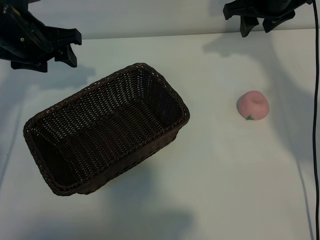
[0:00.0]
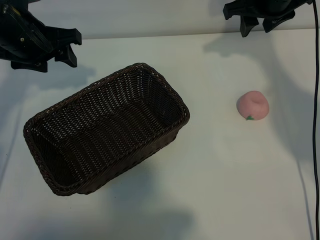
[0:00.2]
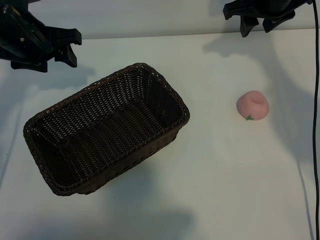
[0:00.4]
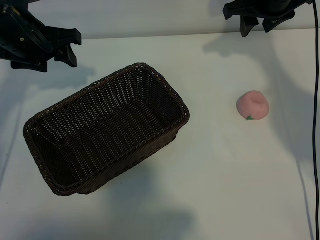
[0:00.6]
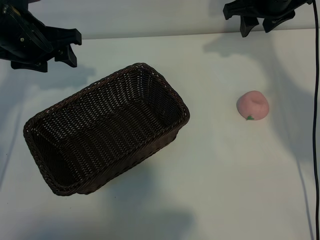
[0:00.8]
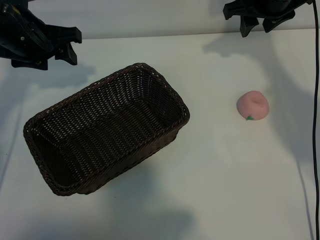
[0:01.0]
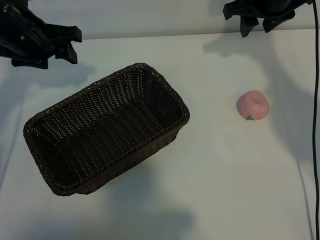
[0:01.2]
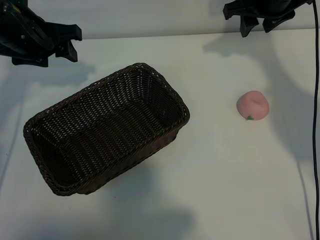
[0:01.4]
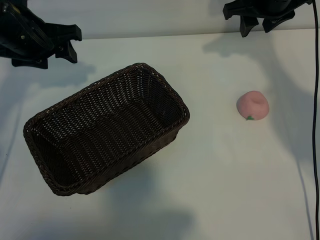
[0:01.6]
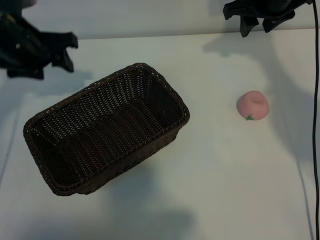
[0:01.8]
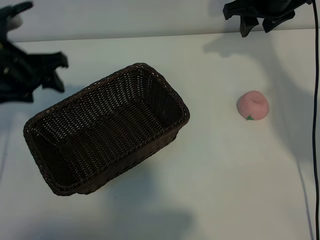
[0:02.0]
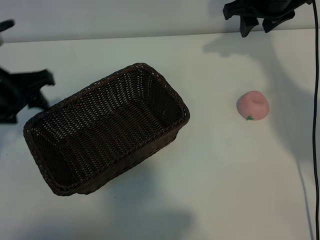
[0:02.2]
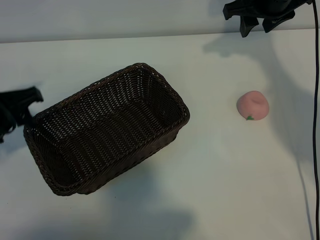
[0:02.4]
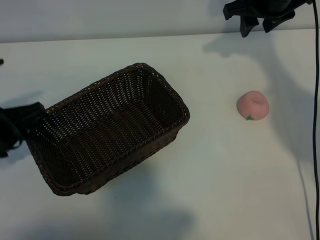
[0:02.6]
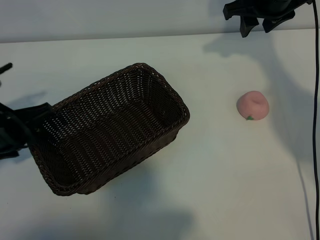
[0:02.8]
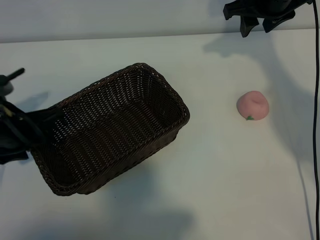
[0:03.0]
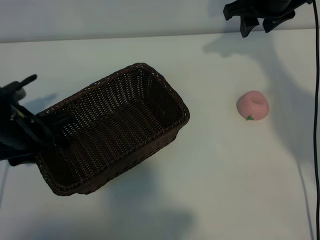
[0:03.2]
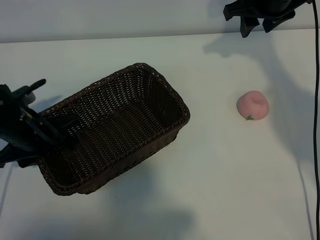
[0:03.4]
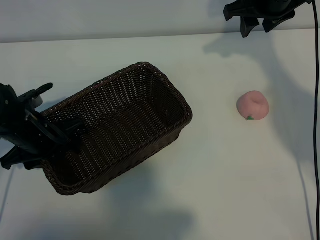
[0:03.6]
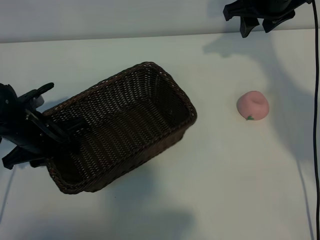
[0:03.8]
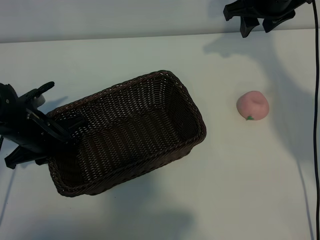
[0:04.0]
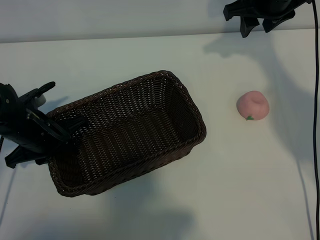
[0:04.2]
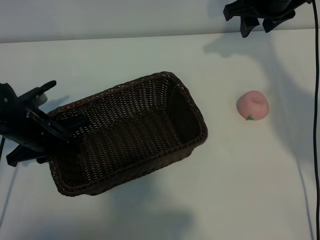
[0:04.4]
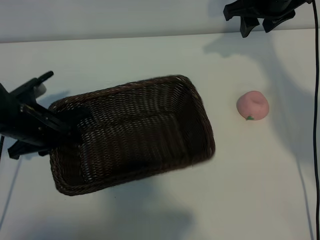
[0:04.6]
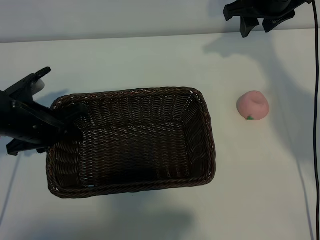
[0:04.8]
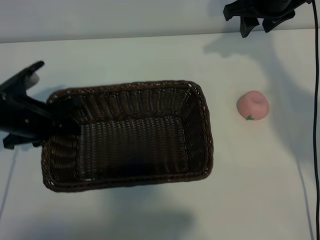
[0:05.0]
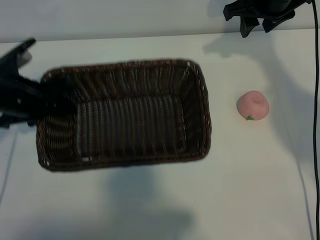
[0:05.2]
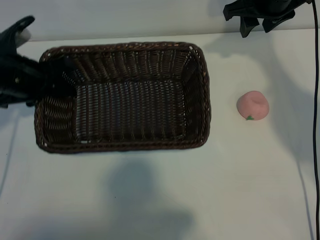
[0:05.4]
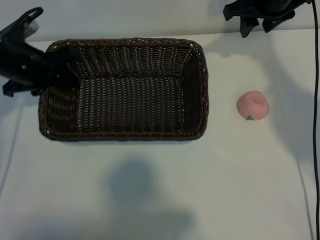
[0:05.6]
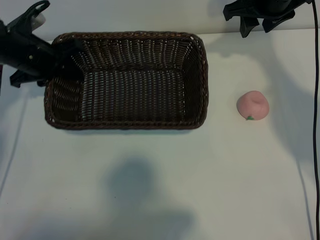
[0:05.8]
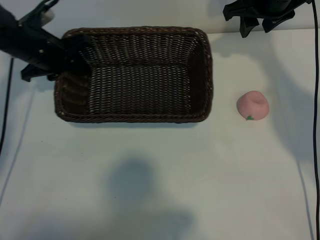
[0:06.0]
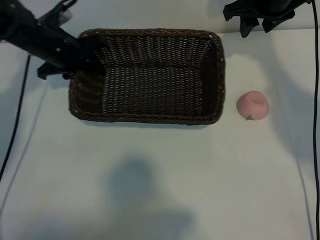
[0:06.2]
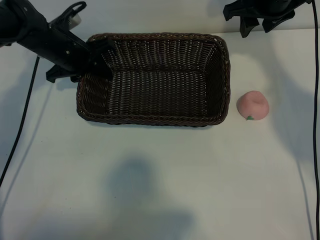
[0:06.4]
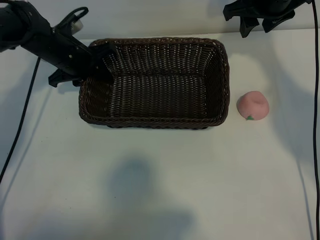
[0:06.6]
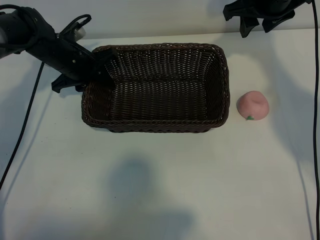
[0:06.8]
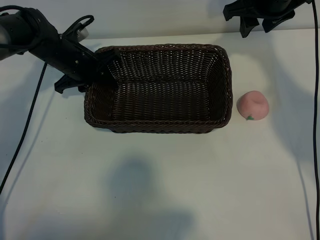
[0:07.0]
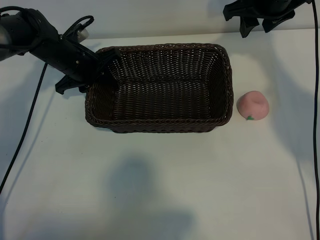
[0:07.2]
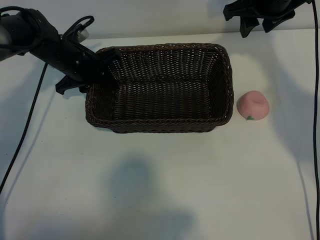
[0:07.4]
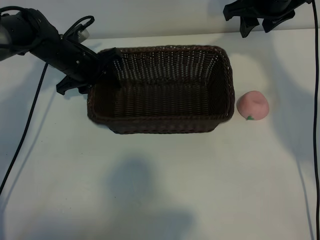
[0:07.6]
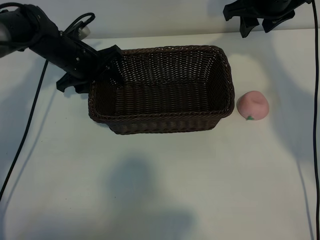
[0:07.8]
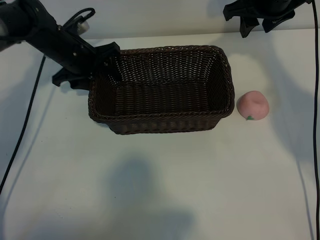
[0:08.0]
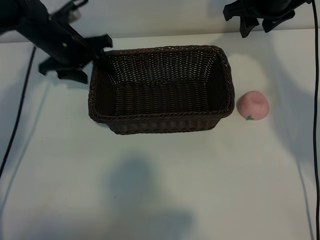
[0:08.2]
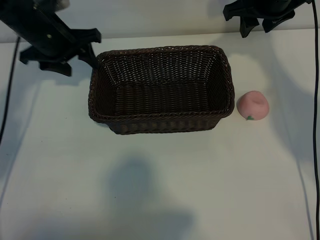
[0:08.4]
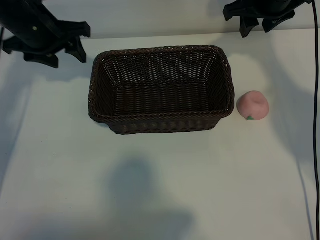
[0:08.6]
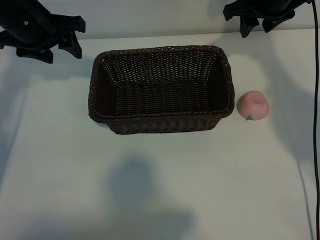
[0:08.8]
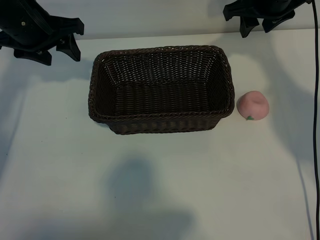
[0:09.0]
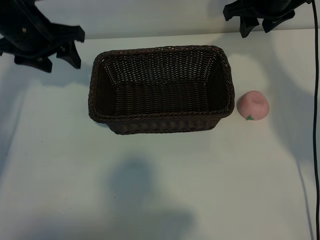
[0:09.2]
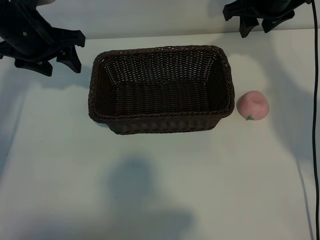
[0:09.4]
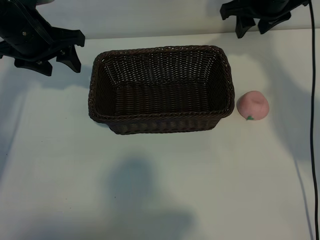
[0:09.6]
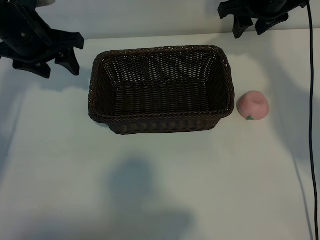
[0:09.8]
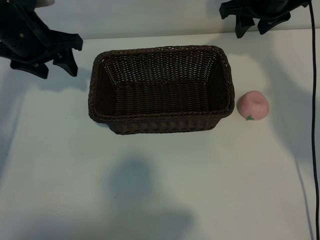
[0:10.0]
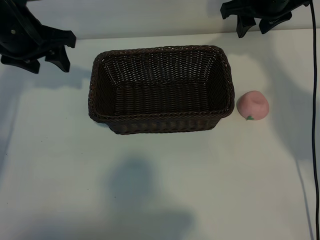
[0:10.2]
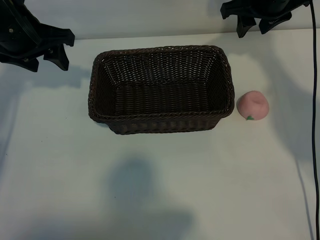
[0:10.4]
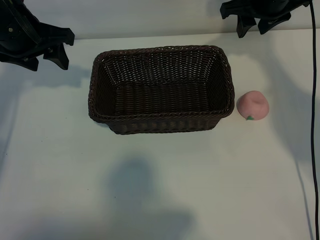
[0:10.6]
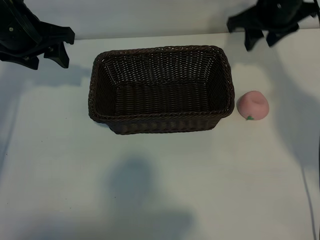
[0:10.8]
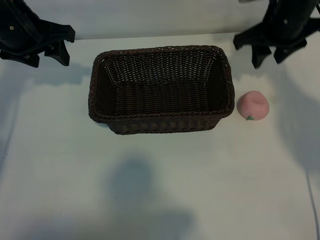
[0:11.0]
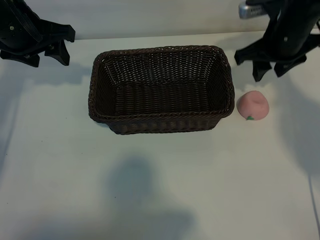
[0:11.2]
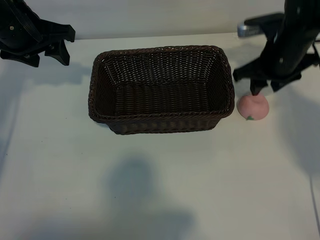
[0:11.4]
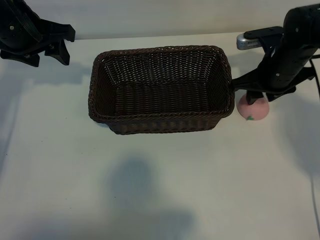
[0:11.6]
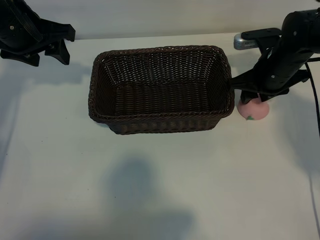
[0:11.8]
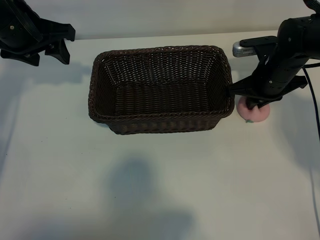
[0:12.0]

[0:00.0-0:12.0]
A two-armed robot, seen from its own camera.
Task of the whole recording: pick up the peach and put it into the basket.
Step, 0:01.2 to 0:04.0: Grasp the basket with left gripper.
Step, 0:04.4 to 0:08.0: Place the basket in the center of view with left gripper.

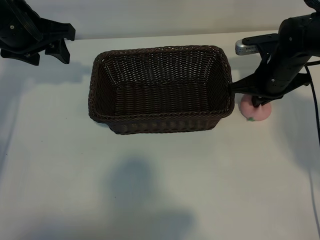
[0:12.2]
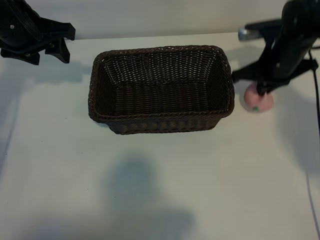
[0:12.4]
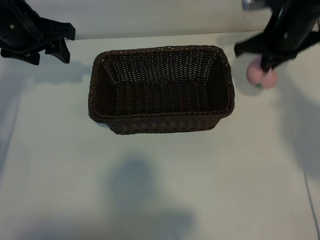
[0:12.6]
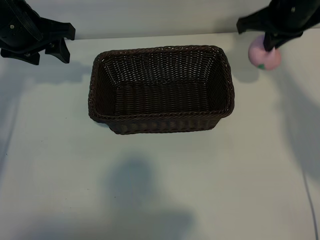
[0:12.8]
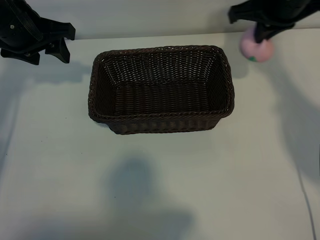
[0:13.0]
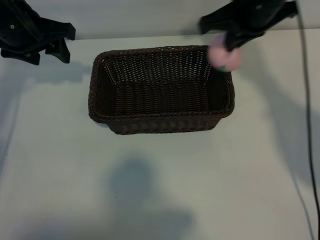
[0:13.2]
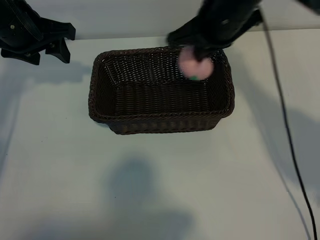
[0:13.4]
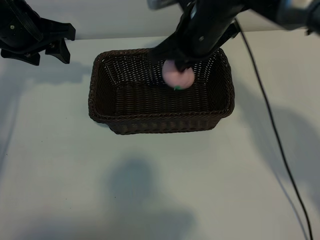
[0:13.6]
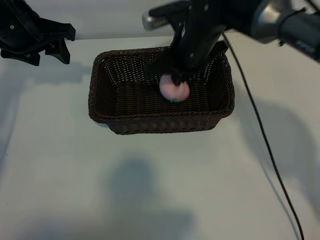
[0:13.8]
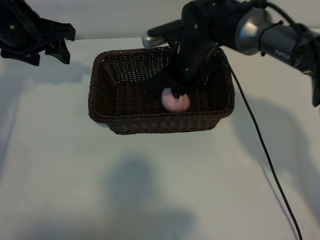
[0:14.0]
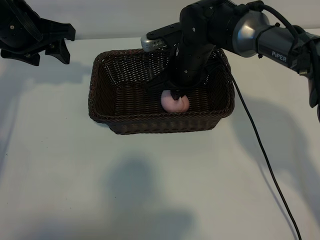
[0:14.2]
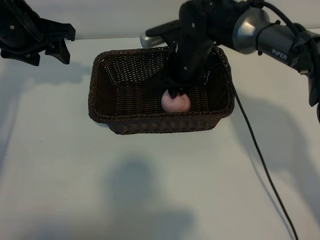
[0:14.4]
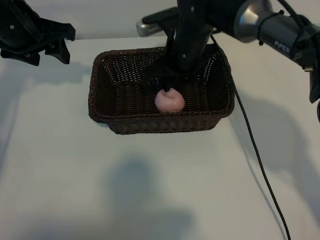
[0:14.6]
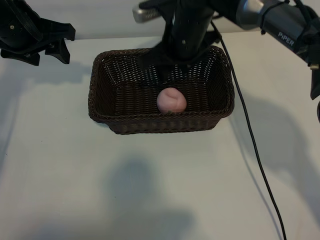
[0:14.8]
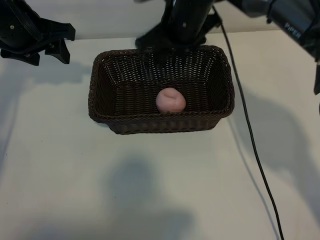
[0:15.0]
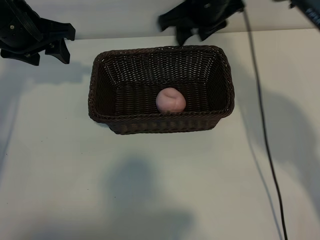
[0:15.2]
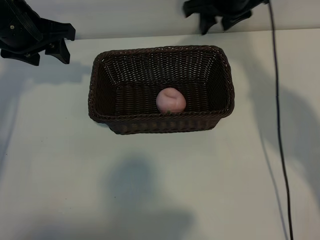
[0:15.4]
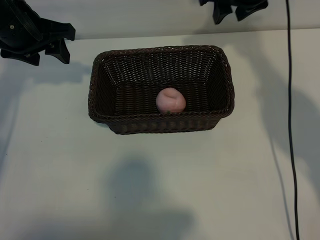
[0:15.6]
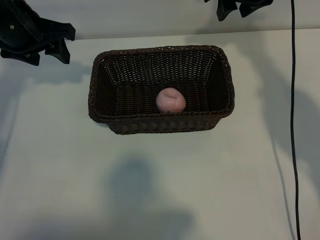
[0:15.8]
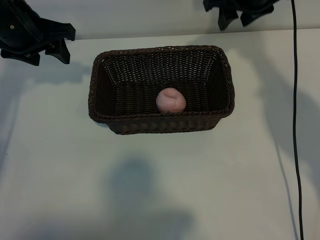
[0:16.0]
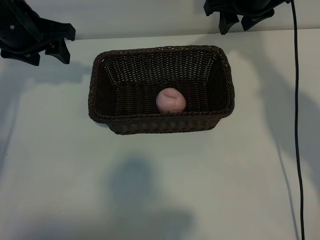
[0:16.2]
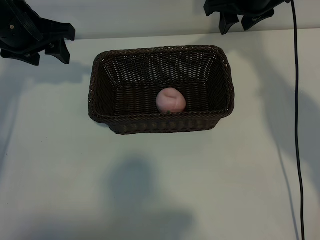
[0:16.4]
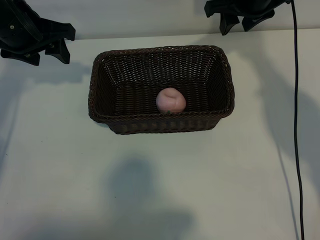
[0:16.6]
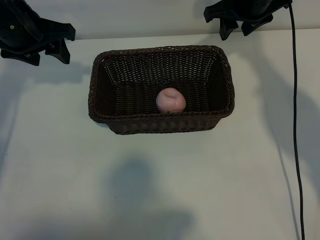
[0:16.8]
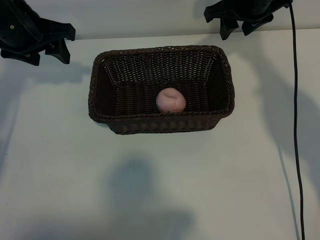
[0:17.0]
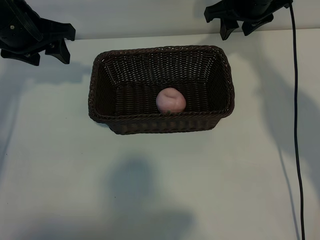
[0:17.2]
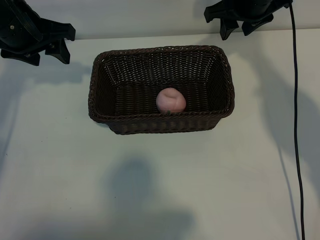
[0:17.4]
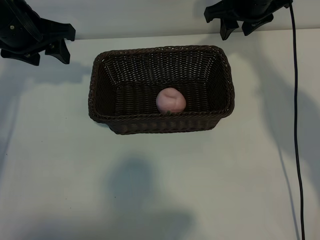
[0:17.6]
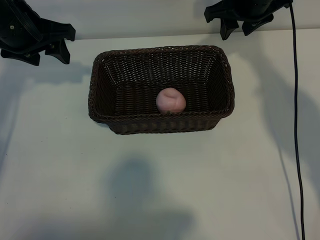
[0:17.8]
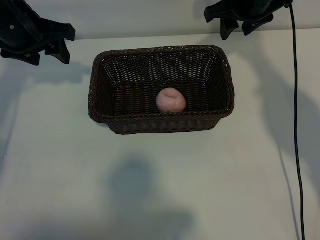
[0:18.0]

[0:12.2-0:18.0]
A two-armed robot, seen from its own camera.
Task of the whole recording: pick up the peach and put it into the basket.
Step, 0:12.4 to 0:14.4: Place the peach in the basket with right gripper.

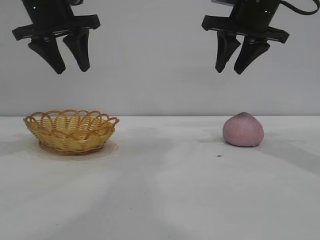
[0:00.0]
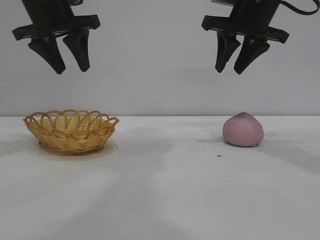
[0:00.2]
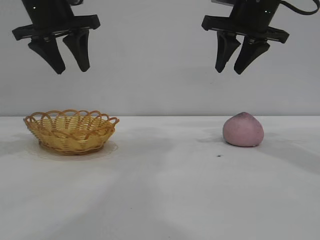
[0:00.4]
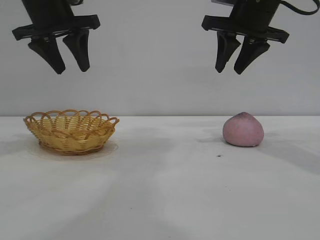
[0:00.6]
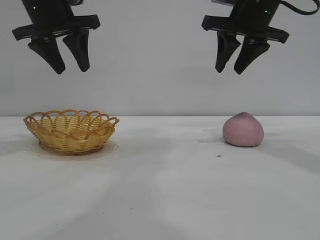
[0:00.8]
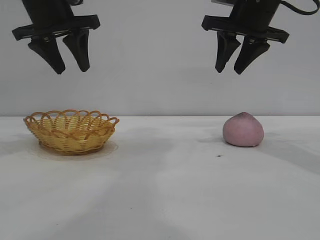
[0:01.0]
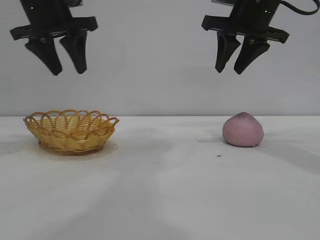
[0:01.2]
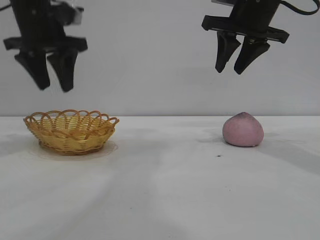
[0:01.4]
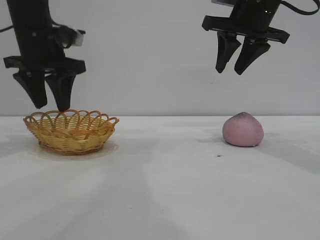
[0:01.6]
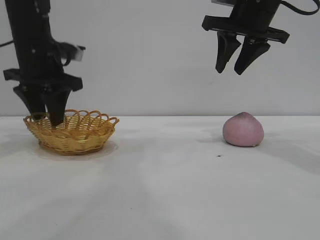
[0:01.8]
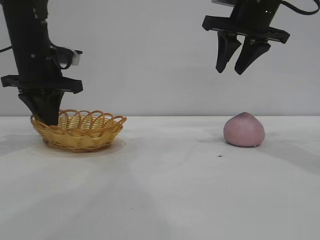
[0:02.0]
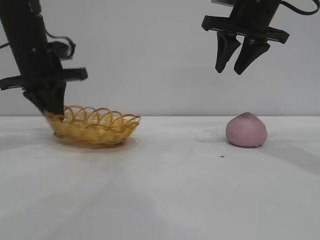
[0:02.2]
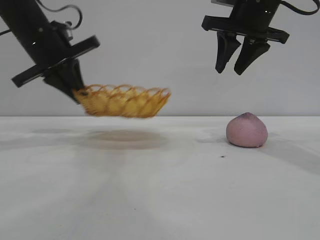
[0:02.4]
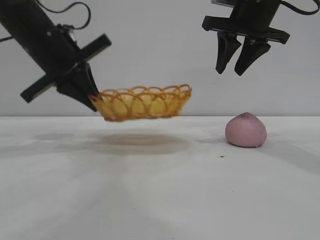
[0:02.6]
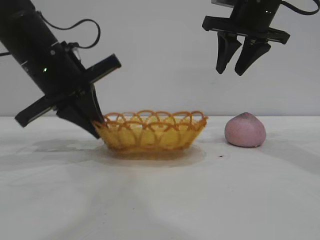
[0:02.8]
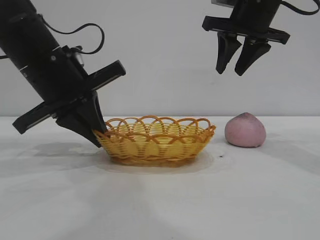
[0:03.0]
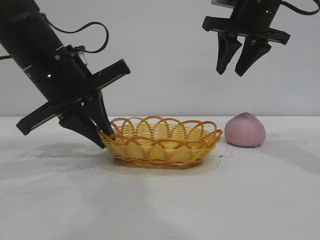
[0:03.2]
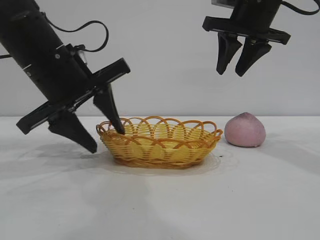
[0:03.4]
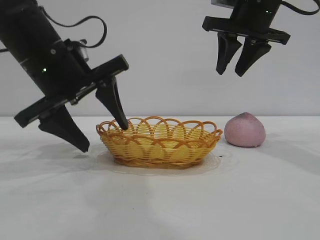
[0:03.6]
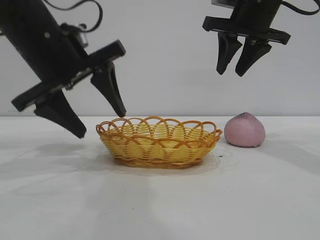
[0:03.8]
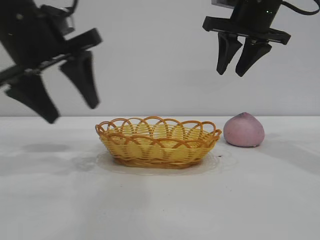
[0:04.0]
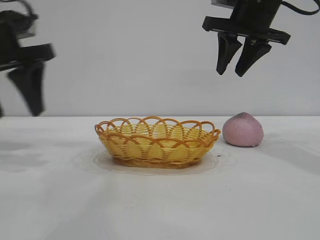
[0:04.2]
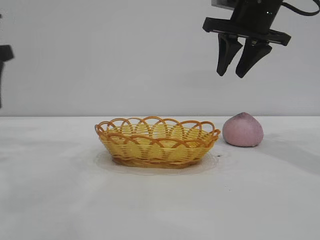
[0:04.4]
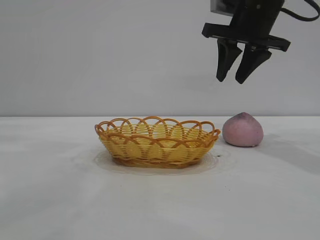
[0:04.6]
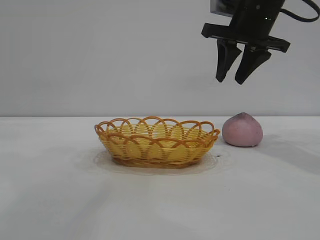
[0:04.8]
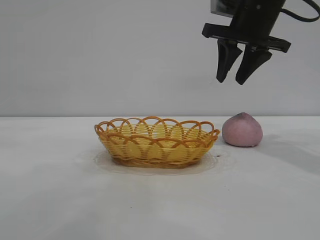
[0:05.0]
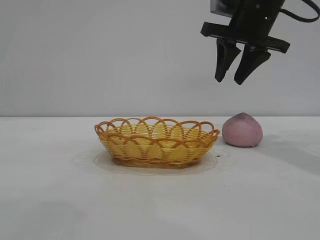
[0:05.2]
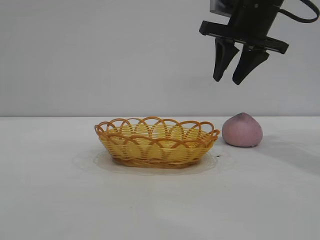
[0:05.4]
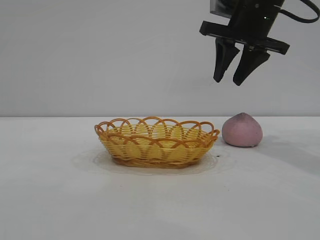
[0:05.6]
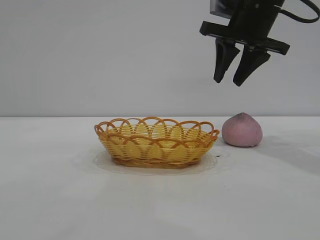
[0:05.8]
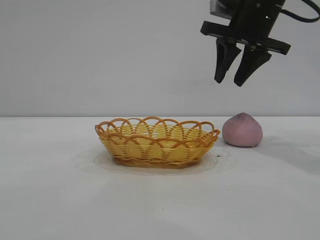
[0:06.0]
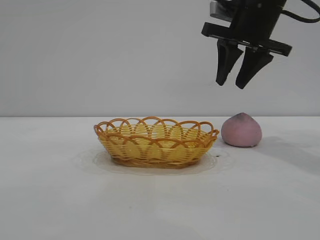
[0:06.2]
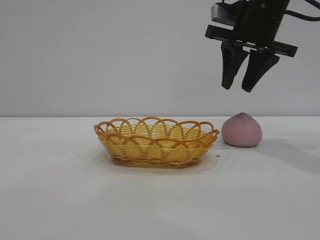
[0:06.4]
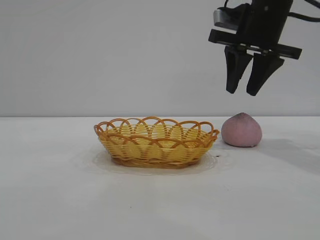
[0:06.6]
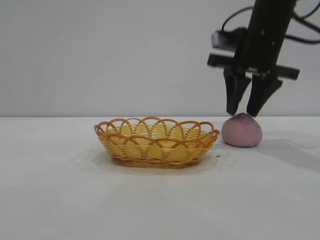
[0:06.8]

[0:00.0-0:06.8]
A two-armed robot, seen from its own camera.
Task of the whole recording: pick up the peach and put it into the basket.
Step, 0:00.0 to 0:04.0: Move the basket to the center of view.
